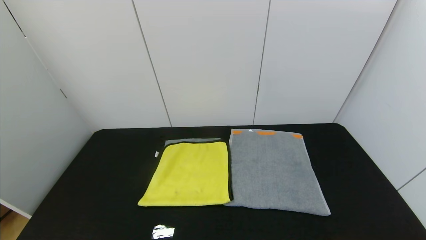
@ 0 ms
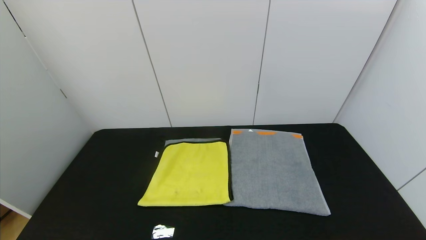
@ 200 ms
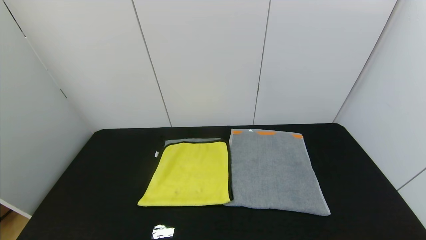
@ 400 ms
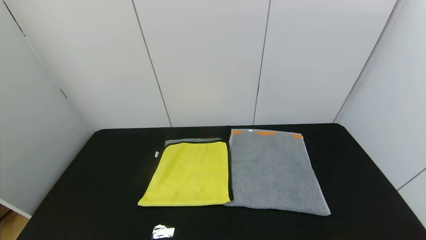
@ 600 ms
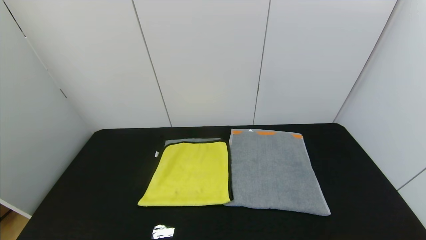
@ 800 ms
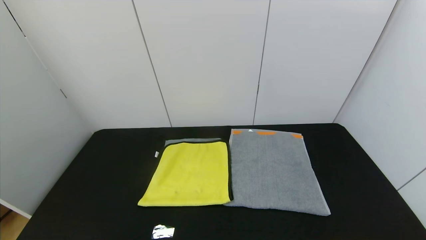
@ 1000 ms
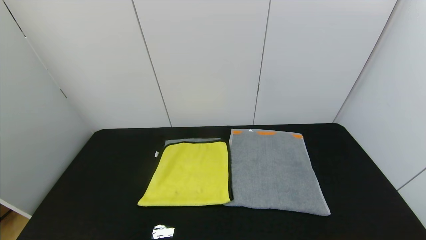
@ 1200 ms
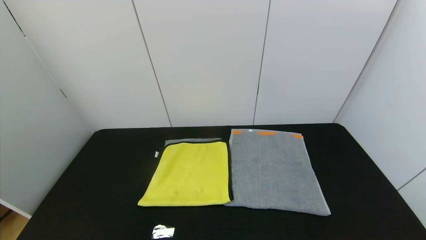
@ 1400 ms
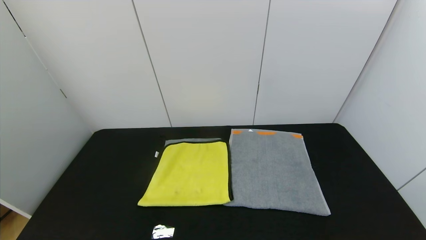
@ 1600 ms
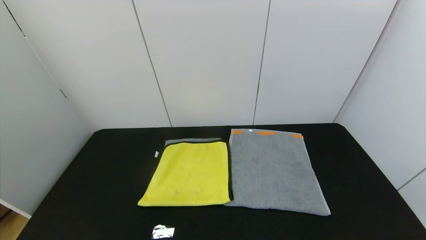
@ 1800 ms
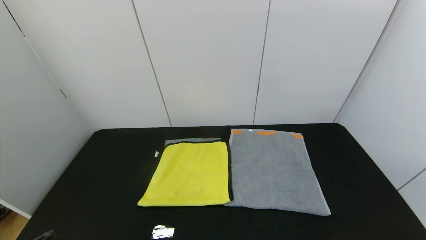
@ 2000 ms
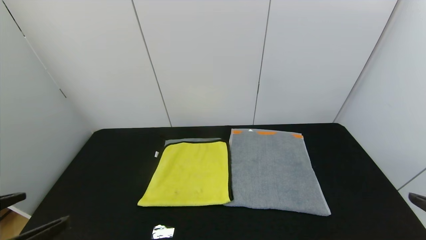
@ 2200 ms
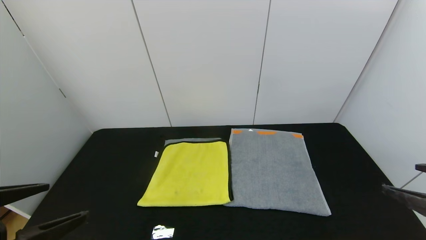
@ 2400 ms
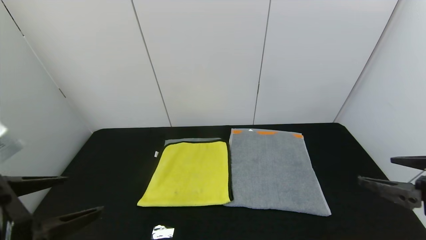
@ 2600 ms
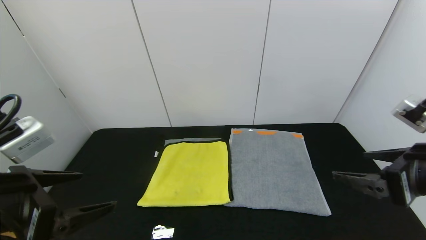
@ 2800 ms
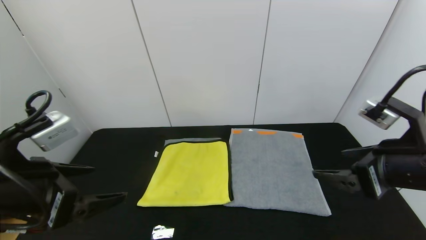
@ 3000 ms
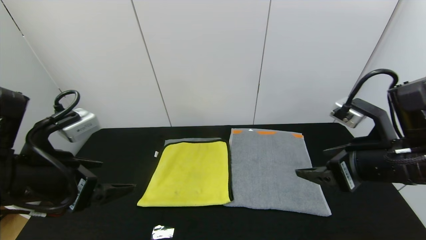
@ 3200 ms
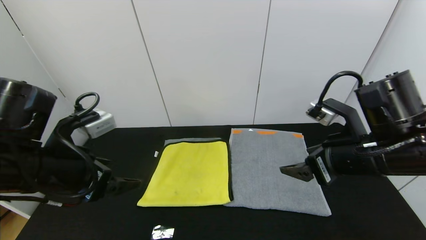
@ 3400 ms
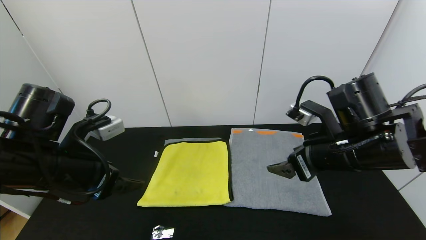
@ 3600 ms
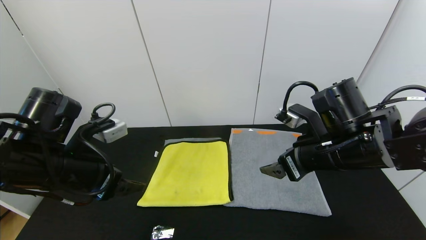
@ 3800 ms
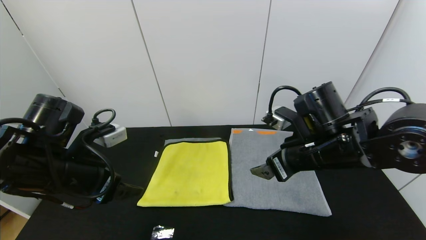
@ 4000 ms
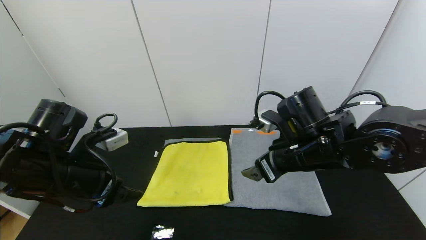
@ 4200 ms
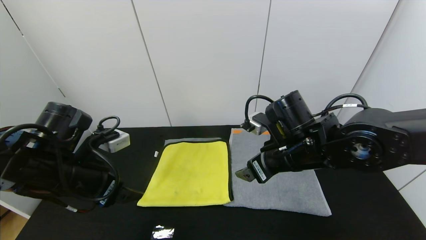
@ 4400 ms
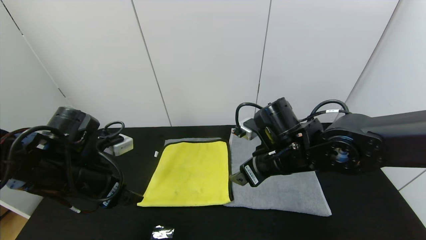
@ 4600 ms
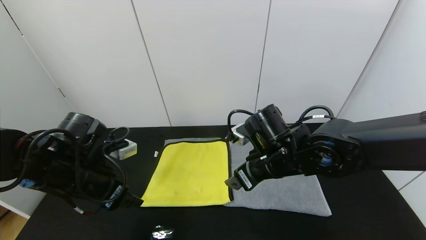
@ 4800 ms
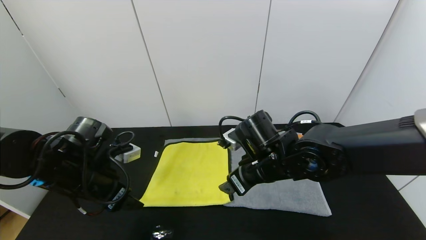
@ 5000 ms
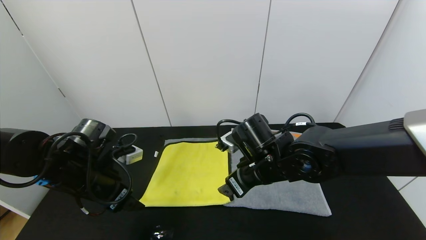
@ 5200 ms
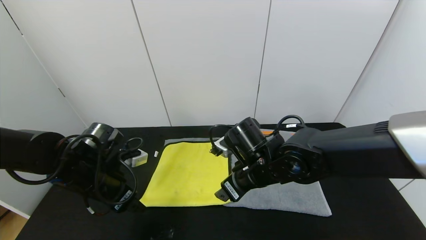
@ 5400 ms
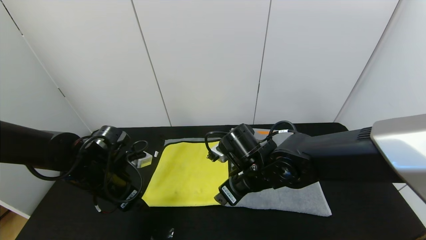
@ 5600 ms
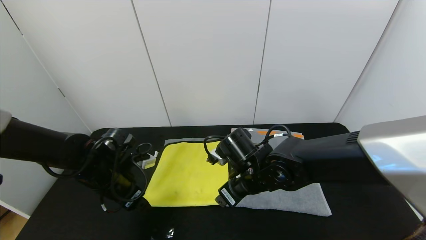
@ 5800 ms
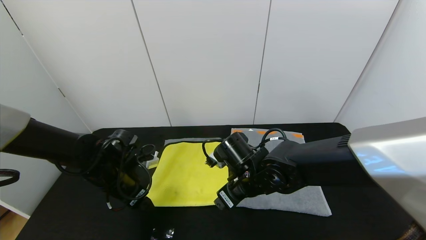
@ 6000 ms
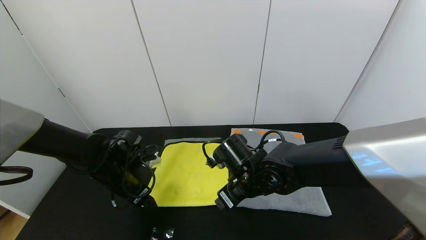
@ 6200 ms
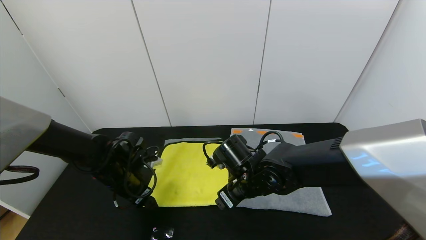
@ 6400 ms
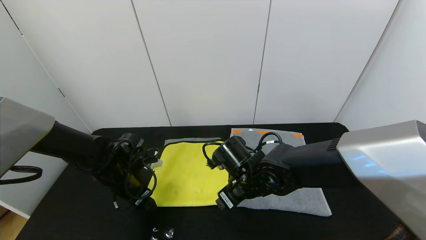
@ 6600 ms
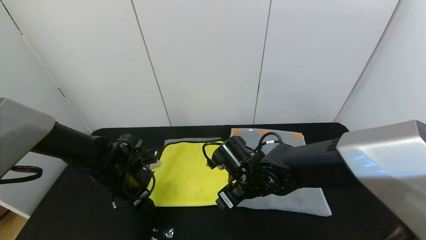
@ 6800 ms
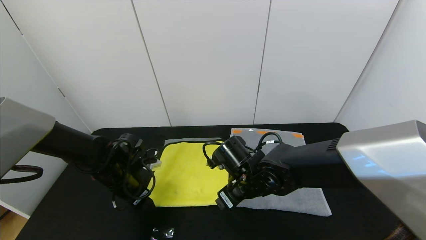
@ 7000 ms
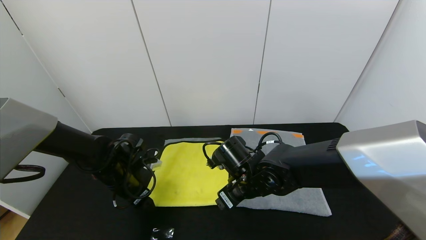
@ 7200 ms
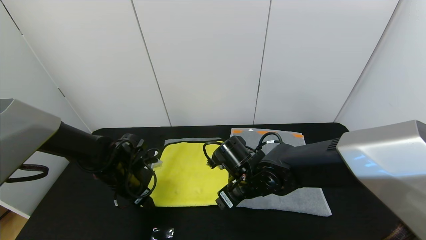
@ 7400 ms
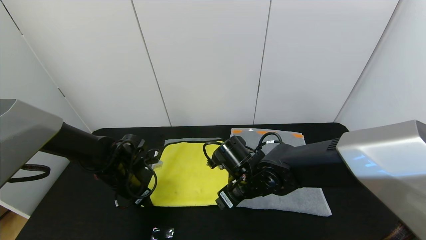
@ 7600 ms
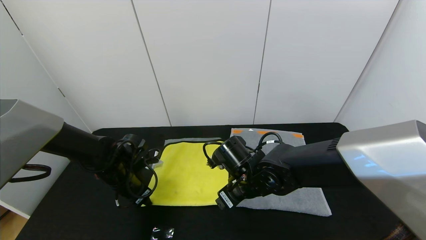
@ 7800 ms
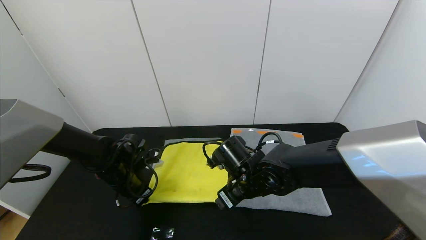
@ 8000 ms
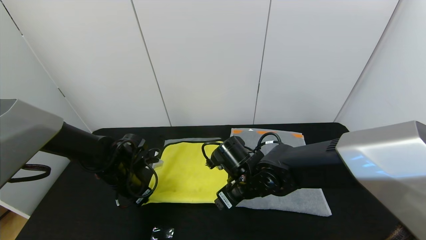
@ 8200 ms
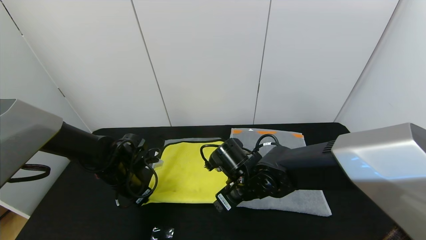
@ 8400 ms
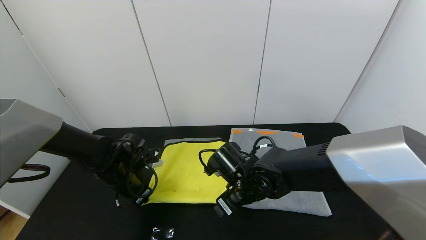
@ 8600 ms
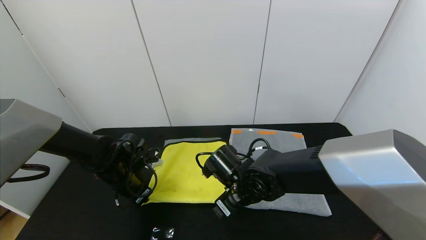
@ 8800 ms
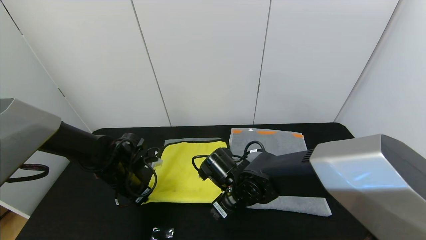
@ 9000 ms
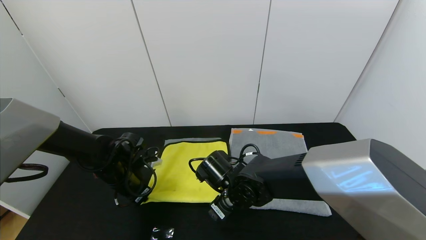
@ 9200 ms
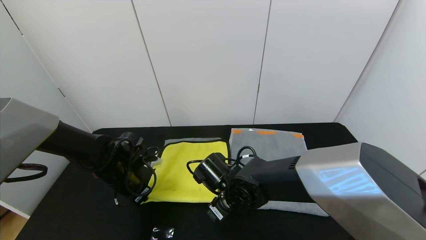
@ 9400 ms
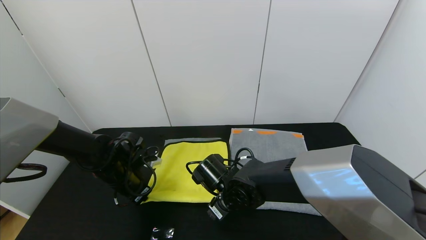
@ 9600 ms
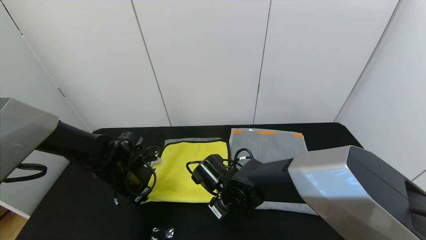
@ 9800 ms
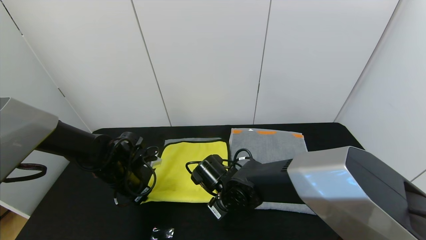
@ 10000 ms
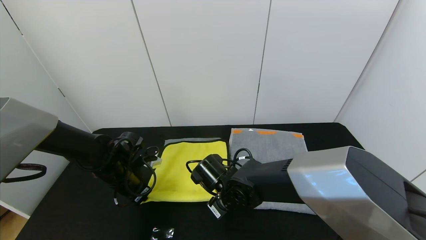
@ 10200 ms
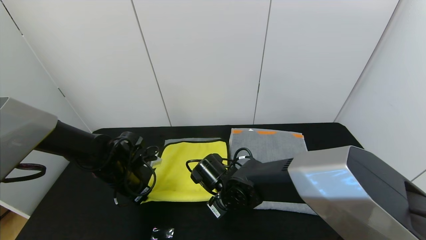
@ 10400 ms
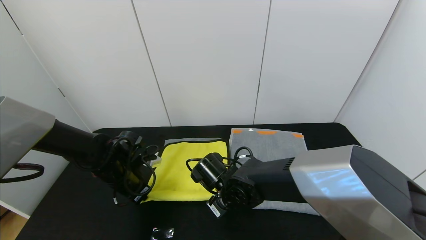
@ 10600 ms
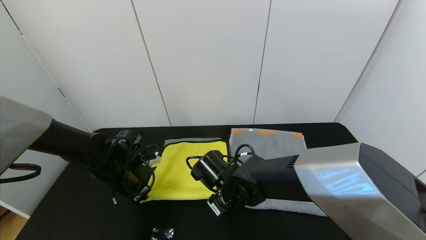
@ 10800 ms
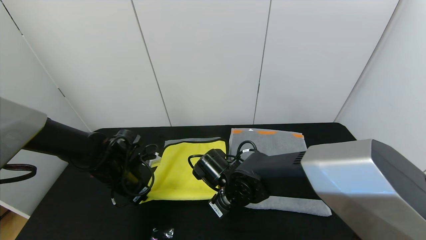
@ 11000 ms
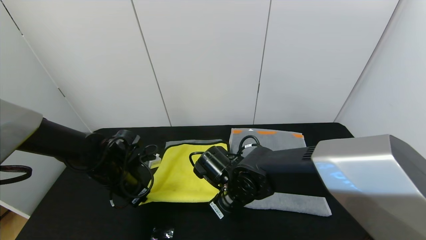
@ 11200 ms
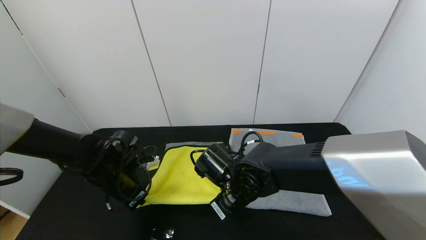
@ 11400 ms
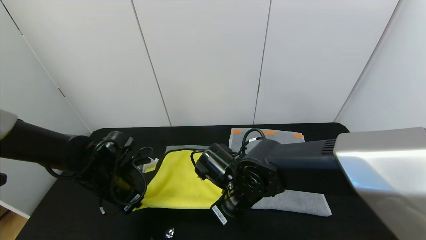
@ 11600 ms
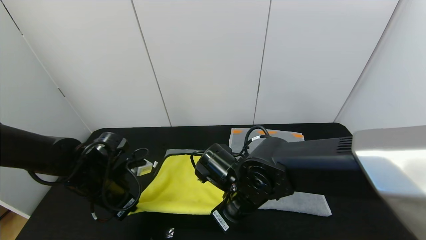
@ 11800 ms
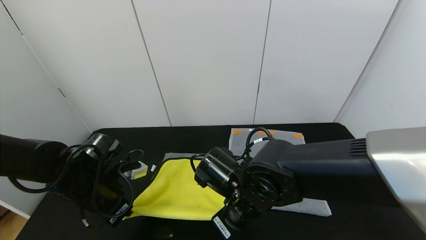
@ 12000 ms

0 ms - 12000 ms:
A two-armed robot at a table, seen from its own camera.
Task of the whole recording: Use the gripper to fold the yellow towel and grey towel in half twice,then put the yellow towel on the grey towel.
1600 ms - 3000 ms: The left gripper is displaced forward and upward by about 15 cm. The right gripper heads forward and to the left, covering about 20 cm.
3000 ms - 4400 ms: The right gripper travels to the left and forward by approximately 15 cm. Meanwhile the left gripper is displaced forward and downward by roughly 10 cm.
4400 ms - 6000 ms: The left gripper is displaced downward and forward by about 15 cm. Meanwhile the right gripper shifts some 10 cm downward and to the left.
6000 ms - 7600 ms: The left gripper closes up.
7600 ms - 9000 ms: The left gripper closes its fingers.
9000 ms - 10400 ms: The right gripper closes up.
10400 ms - 12000 ms: The left gripper heads backward, covering roughly 10 cm. The right gripper goes some 10 cm upward and backward.

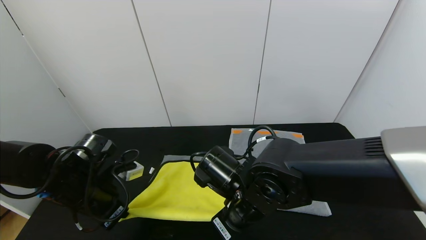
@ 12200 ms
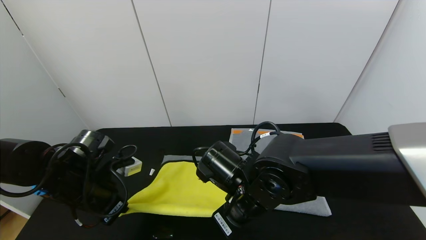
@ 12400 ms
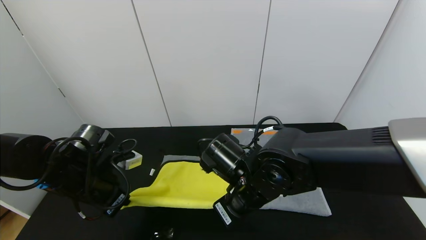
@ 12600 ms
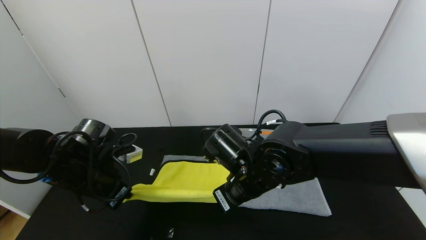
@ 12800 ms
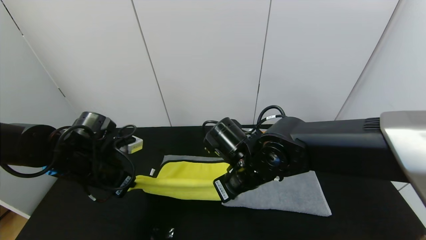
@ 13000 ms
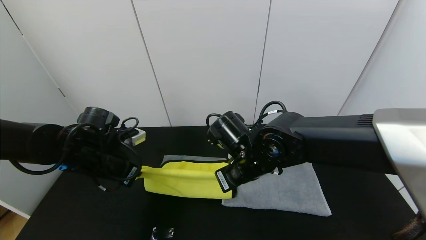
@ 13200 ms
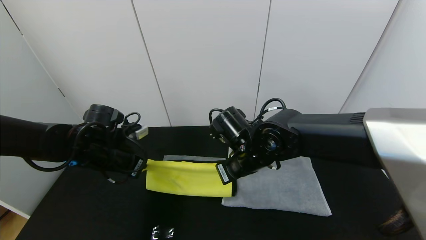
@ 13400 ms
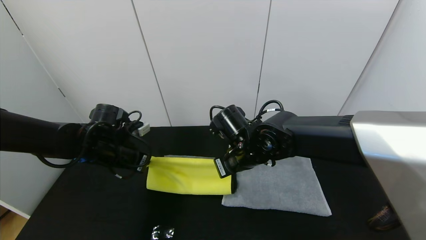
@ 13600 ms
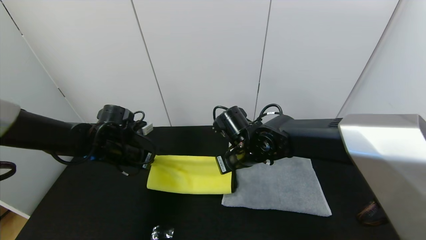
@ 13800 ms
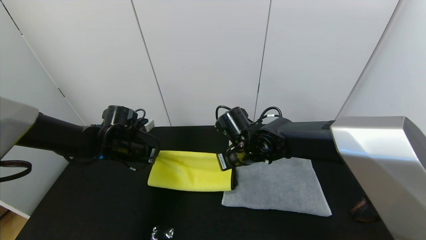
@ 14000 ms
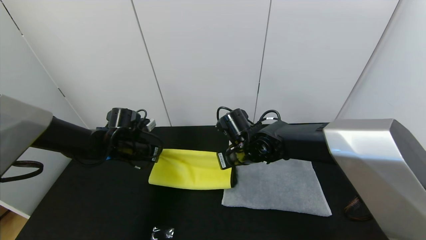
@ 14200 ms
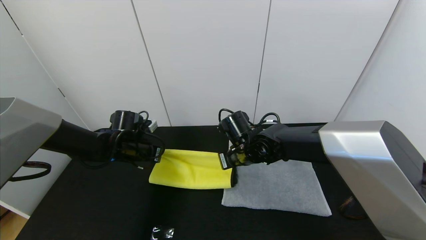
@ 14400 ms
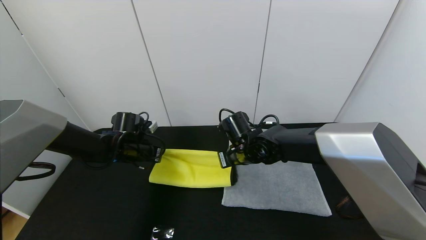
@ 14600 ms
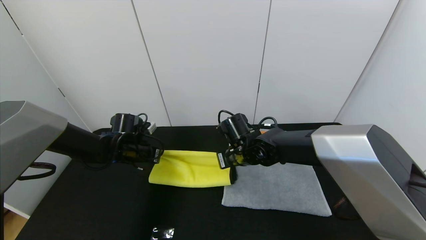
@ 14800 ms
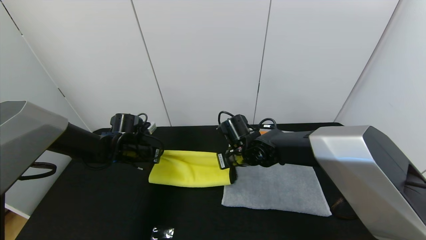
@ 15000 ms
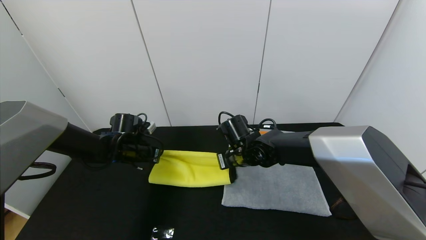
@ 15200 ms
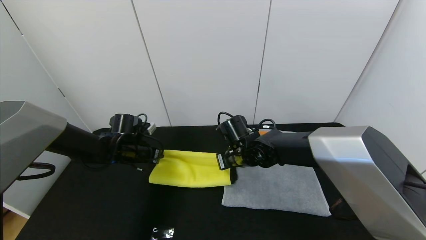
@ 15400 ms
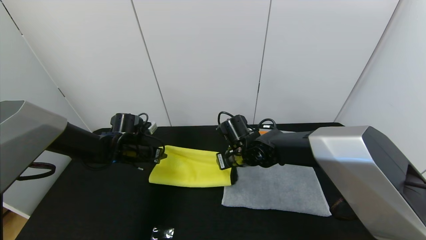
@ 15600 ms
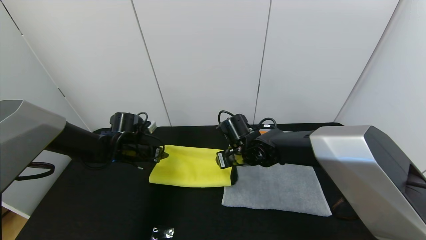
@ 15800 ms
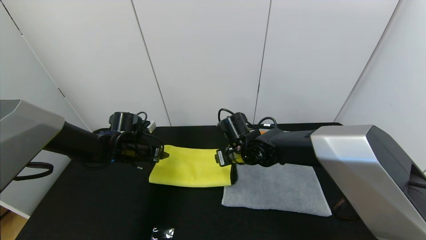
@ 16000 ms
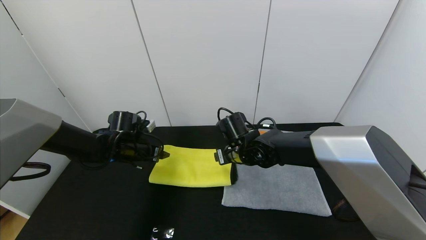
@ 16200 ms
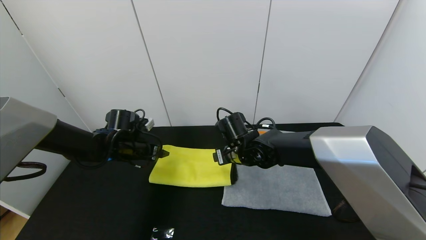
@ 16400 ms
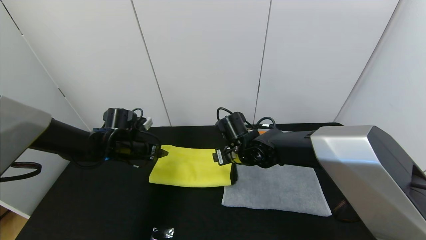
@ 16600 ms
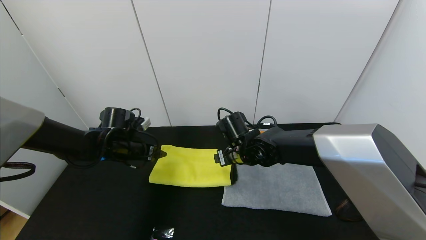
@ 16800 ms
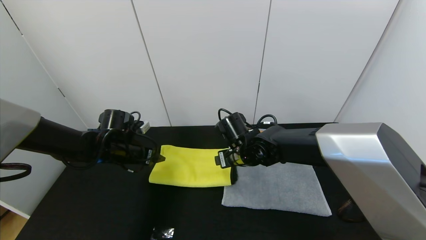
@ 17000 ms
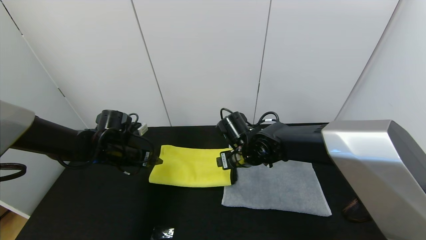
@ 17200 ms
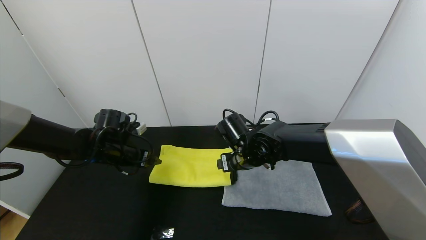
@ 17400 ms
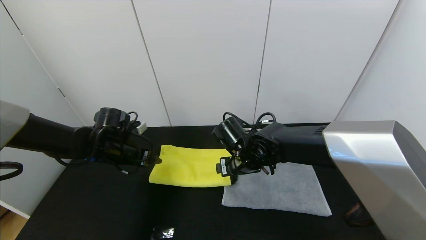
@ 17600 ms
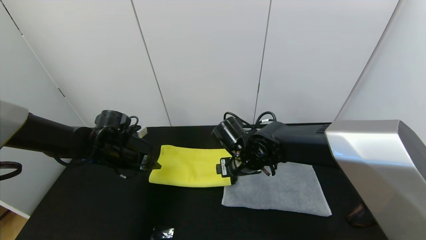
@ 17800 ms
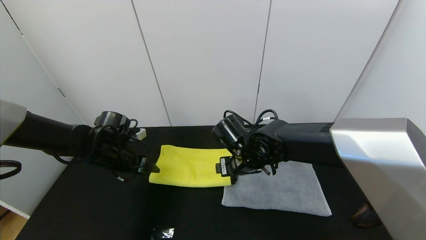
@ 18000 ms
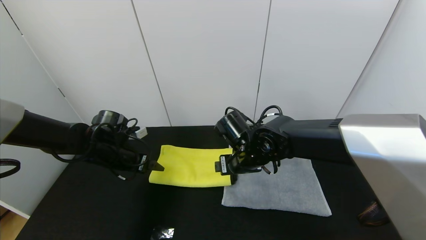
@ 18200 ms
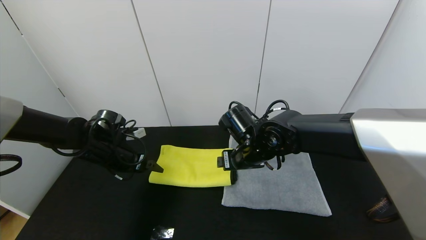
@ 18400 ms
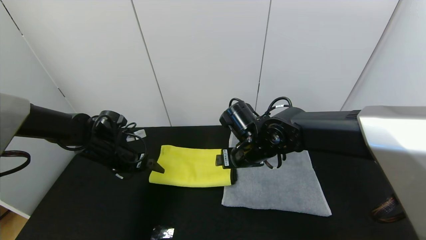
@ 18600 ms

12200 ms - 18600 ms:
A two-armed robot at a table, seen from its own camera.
Task of the whole recording: Use the gripper to fold the yellow towel and grey towel in half twice,then put the yellow towel on the grey towel.
Step, 12200 ms - 16400 ms: Fold the yellow towel upwards with the left gripper.
12200 ms - 13800 ms: The grippers both shift forward by approximately 10 cm.
13800 ms - 15400 ms: The left gripper changes place by approximately 5 cm, and opens its fingers. Meanwhile the right gripper moves about 5 cm, and opens its fingers.
15400 ms - 17000 ms: The right gripper opens up. The left gripper opens.
17000 ms - 18600 ms: The right gripper ends up some 5 cm from where it was.
